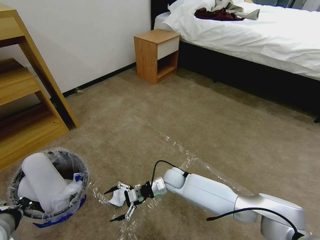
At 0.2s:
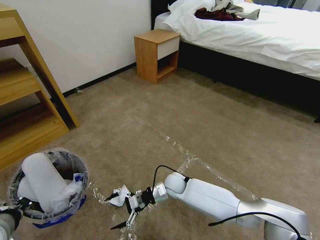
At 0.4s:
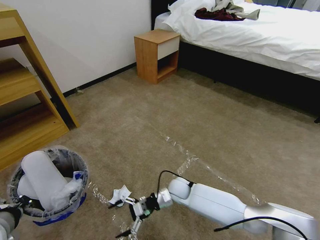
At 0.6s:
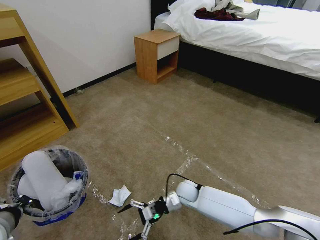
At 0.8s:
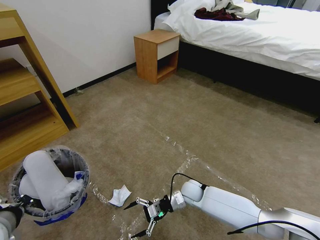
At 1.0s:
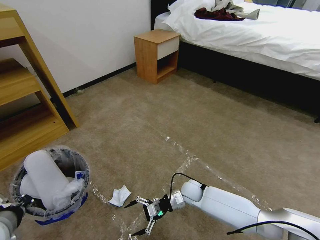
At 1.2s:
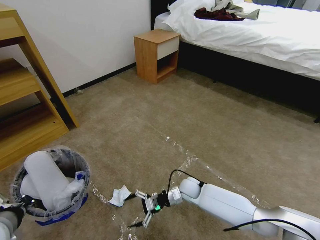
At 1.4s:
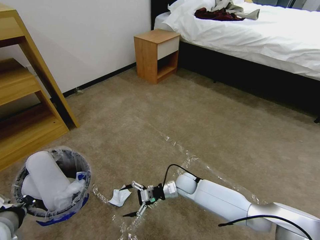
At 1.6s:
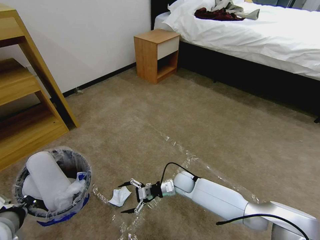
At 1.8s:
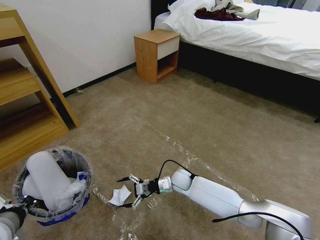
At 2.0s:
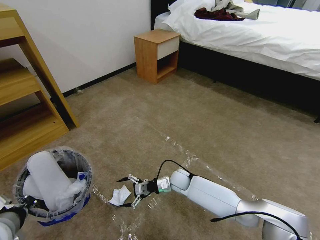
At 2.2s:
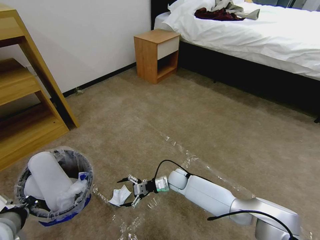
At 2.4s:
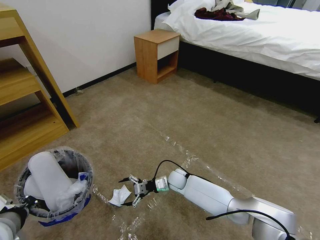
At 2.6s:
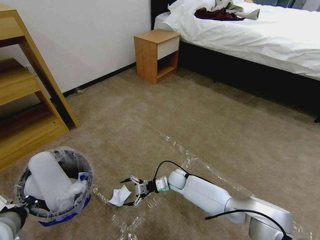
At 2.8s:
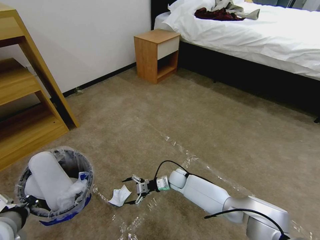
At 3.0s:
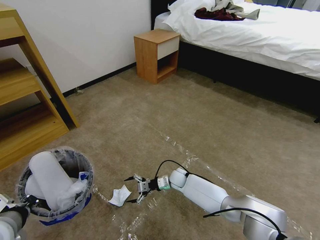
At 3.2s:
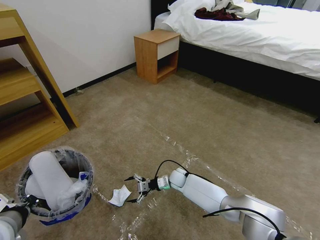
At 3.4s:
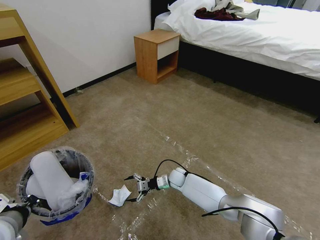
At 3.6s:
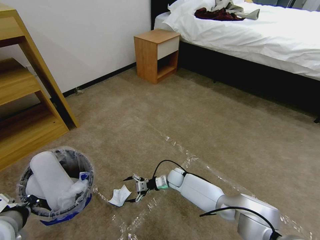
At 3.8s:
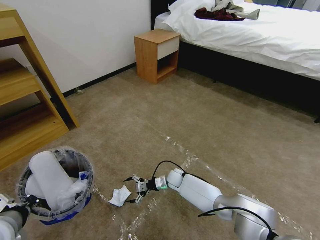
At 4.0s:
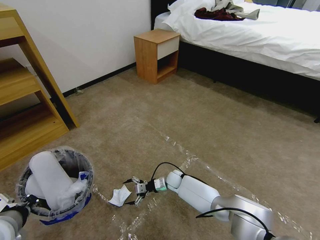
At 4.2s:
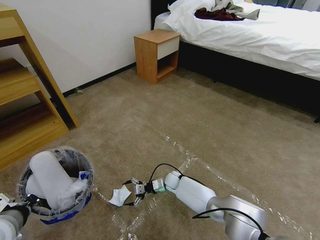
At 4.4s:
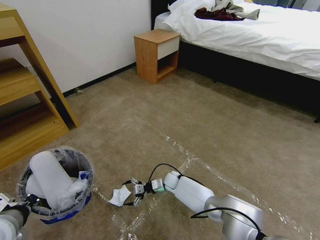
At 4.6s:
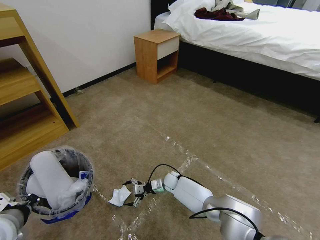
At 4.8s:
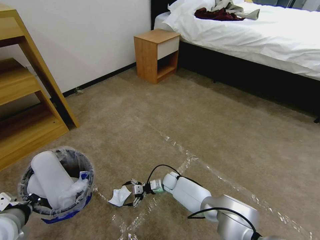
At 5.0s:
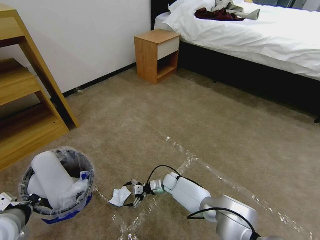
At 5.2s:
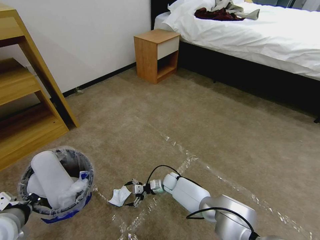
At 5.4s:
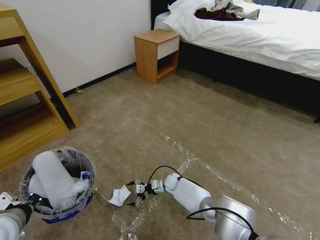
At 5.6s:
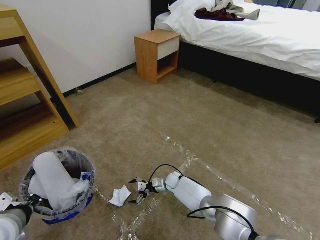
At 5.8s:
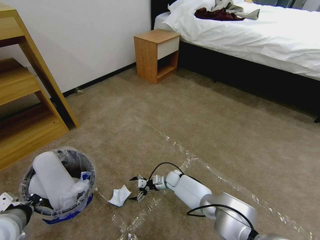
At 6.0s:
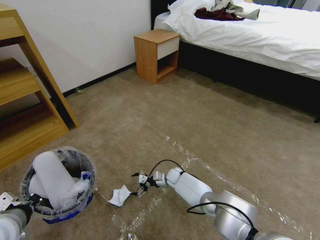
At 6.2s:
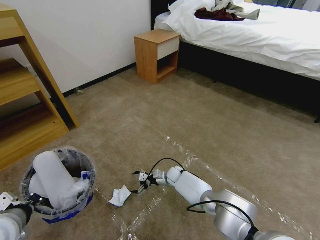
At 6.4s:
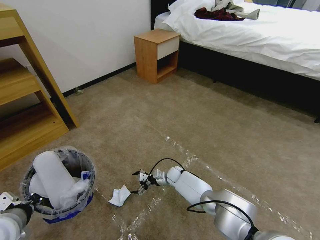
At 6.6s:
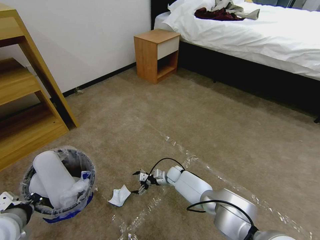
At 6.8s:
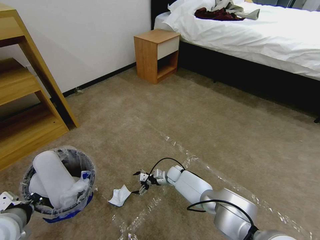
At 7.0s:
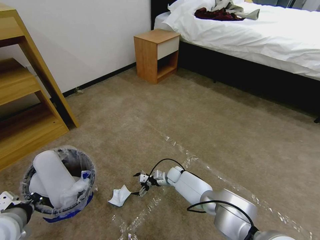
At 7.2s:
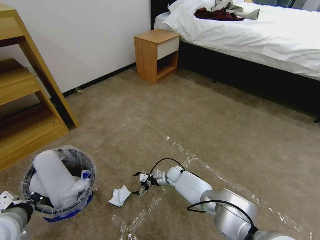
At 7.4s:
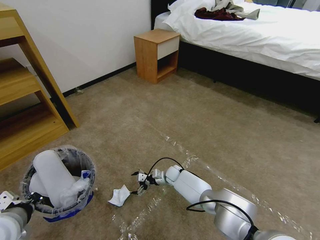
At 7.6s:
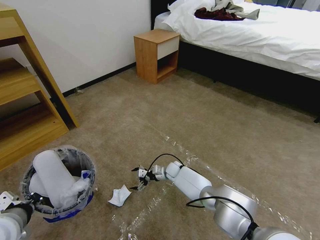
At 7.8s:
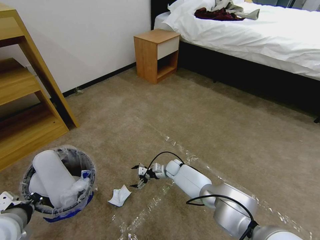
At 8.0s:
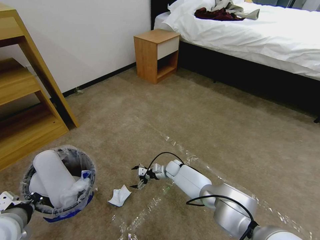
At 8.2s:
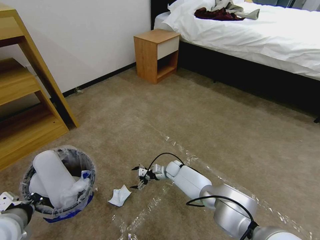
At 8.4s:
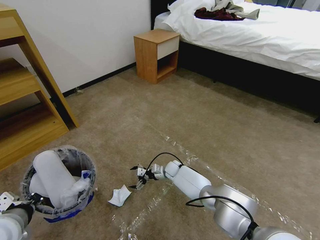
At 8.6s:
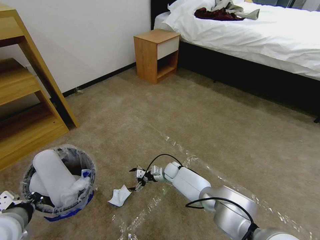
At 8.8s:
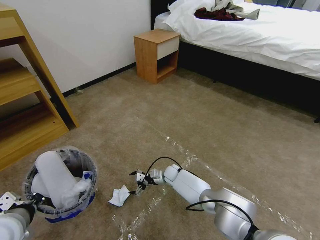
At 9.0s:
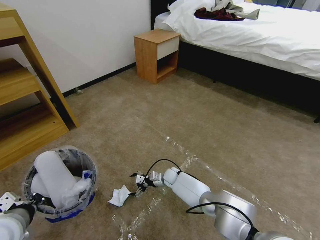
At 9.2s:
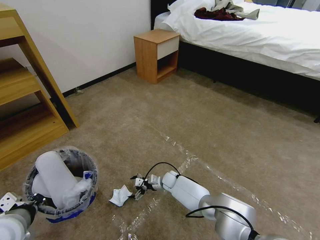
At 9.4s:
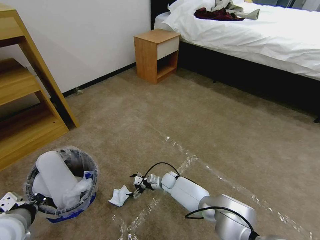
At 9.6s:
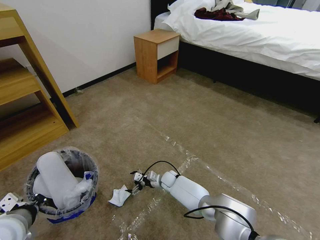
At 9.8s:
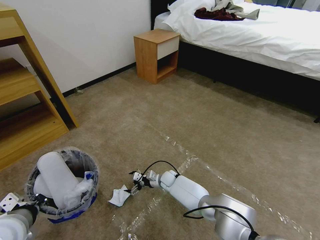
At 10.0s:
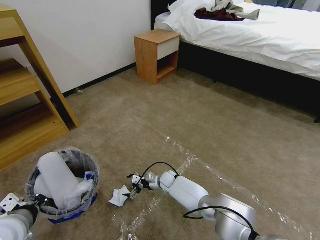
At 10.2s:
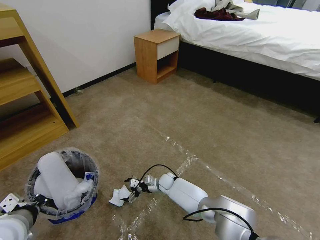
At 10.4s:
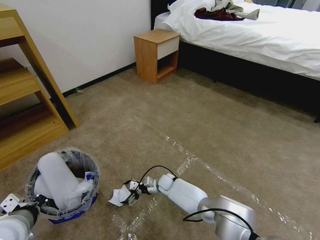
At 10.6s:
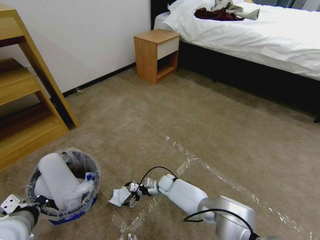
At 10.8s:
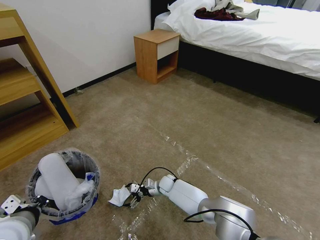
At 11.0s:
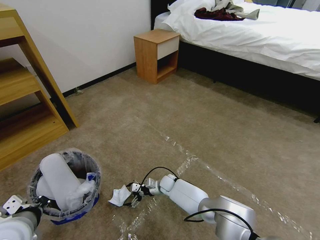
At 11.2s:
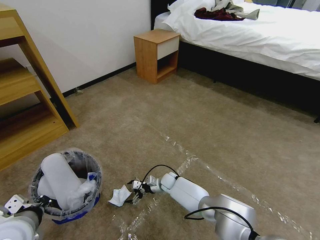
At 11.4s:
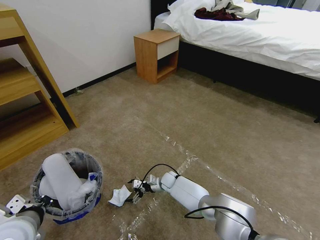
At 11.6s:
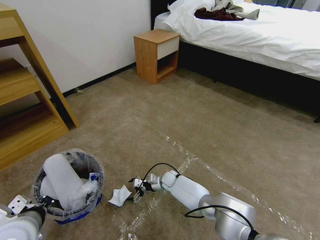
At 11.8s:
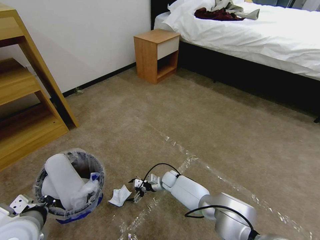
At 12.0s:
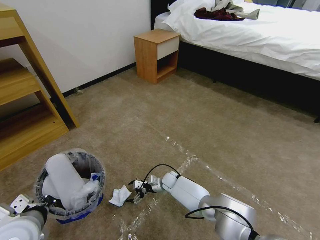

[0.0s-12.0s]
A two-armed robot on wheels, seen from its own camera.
Task of the whole recording: Pick up the trash bin and place the garbage on the floor into it.
1.6s to 3.0s: The right gripper shifts by about 5 cm.
3.0s to 4.4s: The grippers stay close to where they were, moving slightly.
4.4s to 9.0s: The grippers stay close to where they were, moving slightly.
9.0s to 12.0s: The grippers stay close to where they were, moving slightly.

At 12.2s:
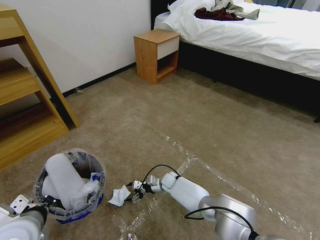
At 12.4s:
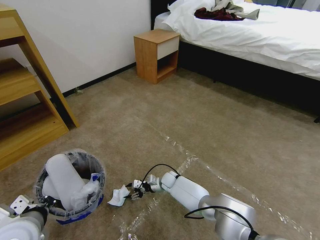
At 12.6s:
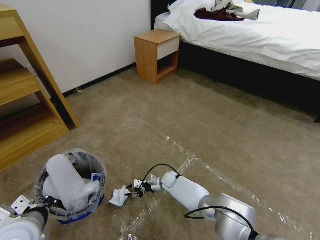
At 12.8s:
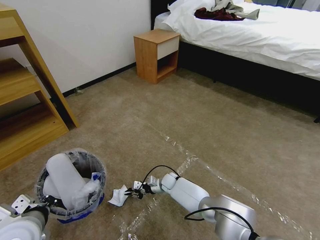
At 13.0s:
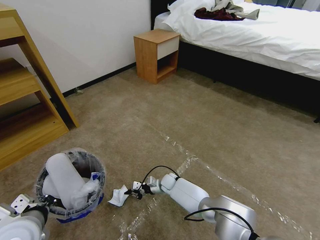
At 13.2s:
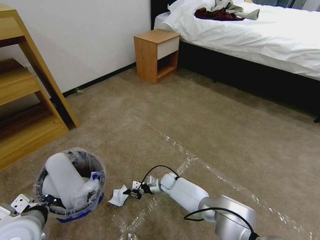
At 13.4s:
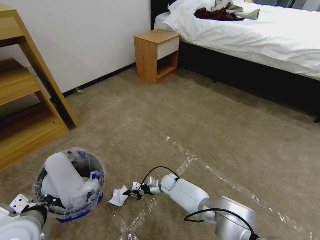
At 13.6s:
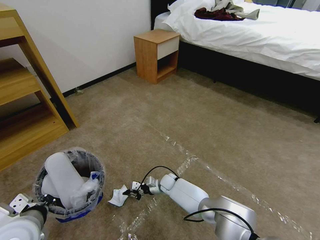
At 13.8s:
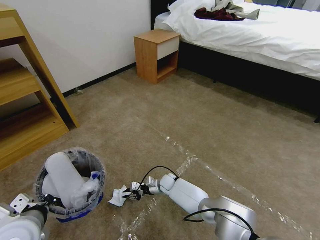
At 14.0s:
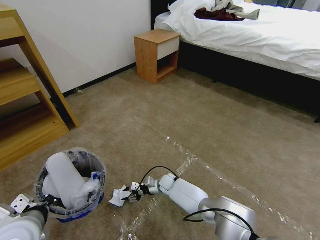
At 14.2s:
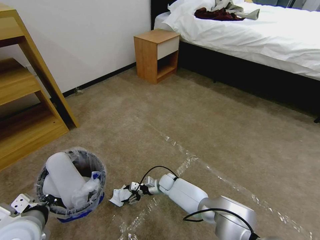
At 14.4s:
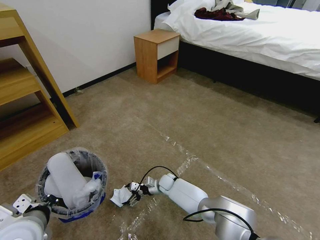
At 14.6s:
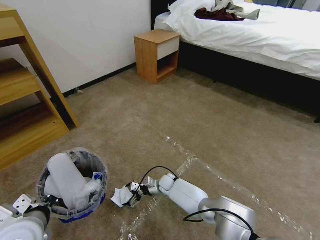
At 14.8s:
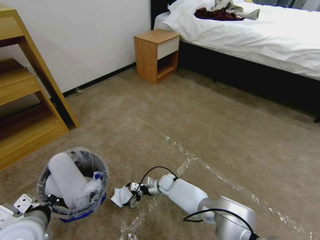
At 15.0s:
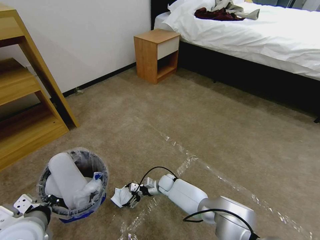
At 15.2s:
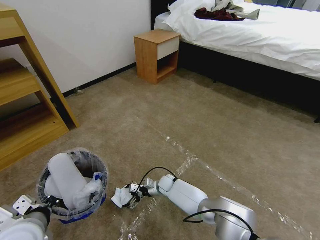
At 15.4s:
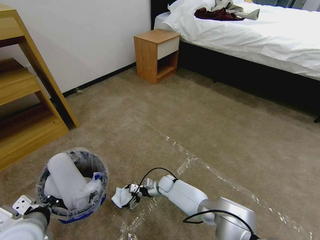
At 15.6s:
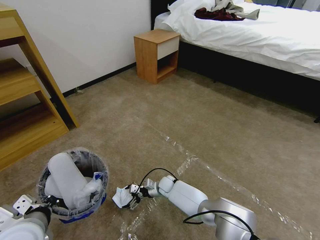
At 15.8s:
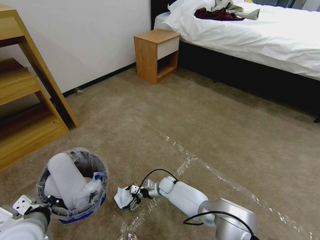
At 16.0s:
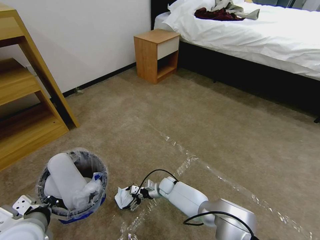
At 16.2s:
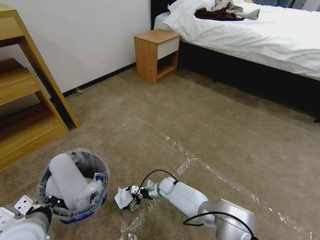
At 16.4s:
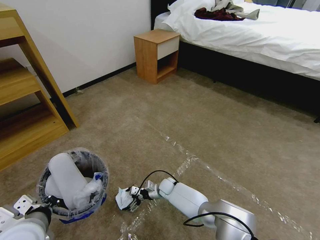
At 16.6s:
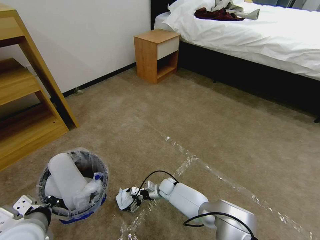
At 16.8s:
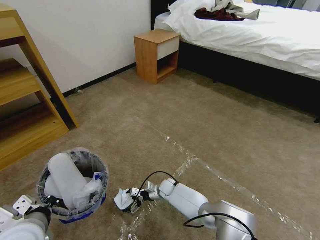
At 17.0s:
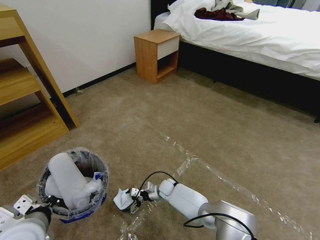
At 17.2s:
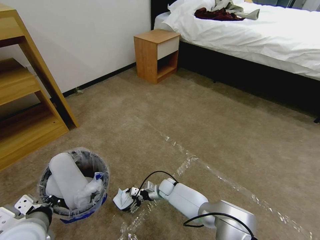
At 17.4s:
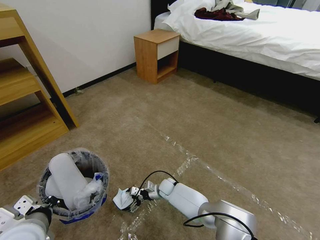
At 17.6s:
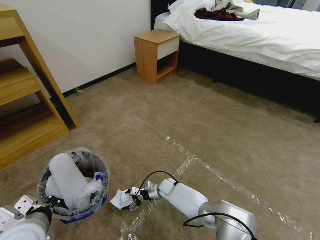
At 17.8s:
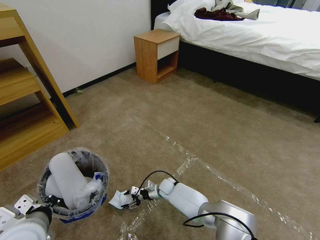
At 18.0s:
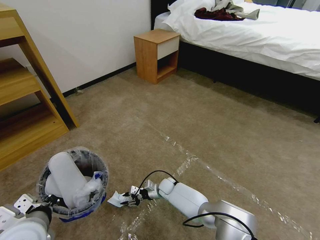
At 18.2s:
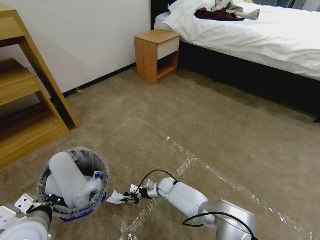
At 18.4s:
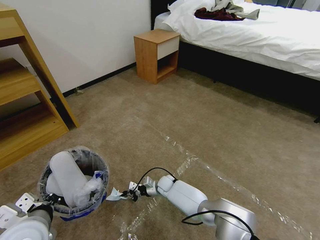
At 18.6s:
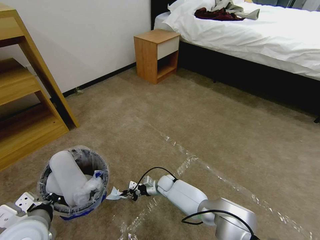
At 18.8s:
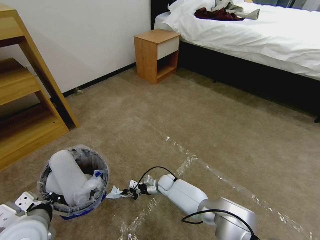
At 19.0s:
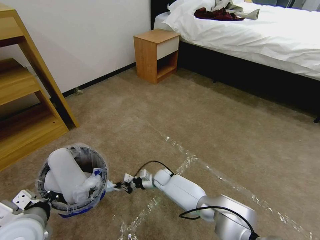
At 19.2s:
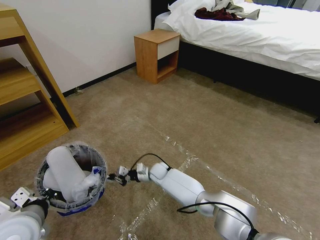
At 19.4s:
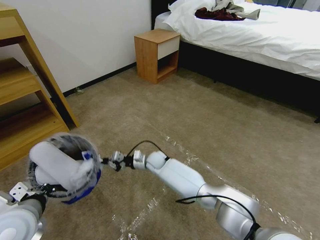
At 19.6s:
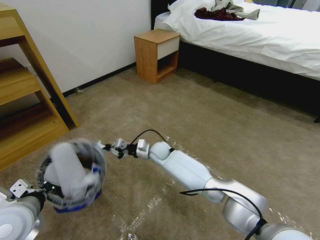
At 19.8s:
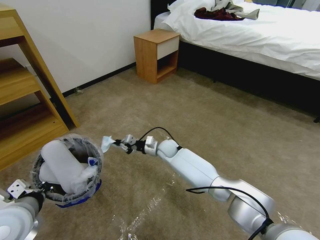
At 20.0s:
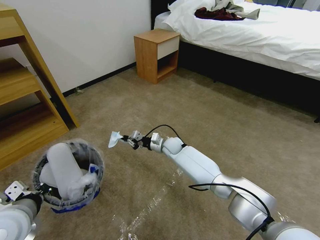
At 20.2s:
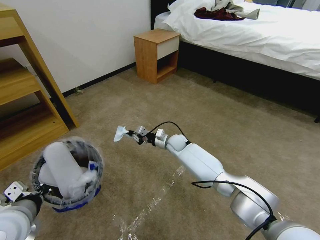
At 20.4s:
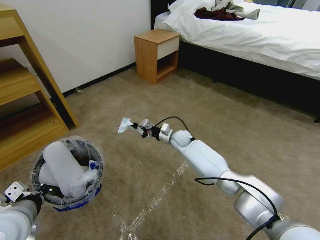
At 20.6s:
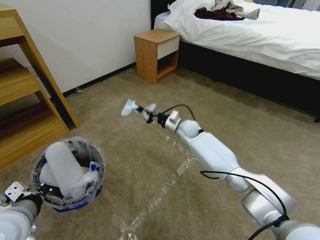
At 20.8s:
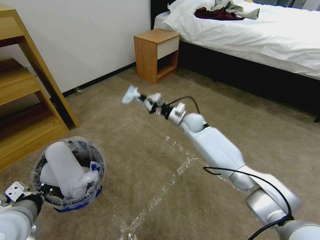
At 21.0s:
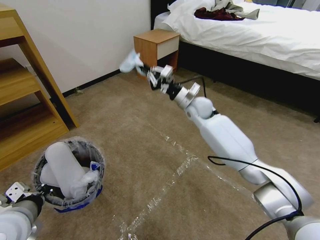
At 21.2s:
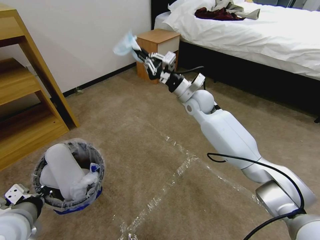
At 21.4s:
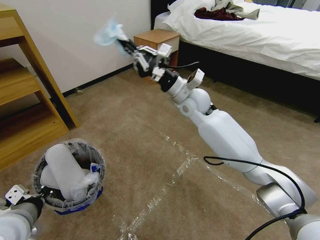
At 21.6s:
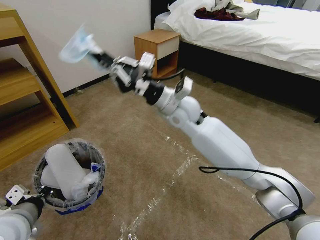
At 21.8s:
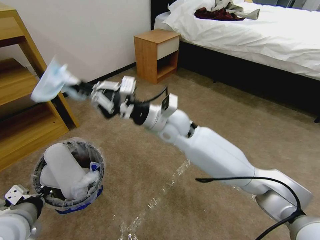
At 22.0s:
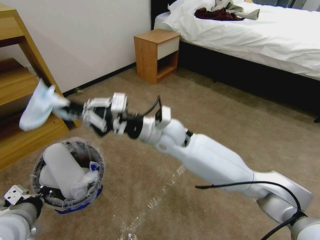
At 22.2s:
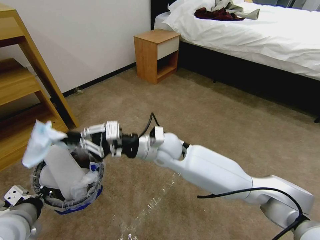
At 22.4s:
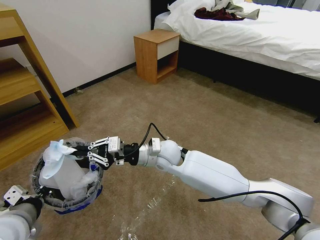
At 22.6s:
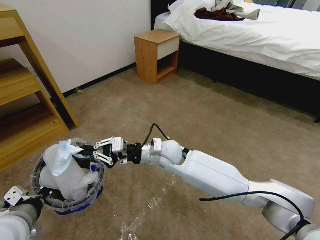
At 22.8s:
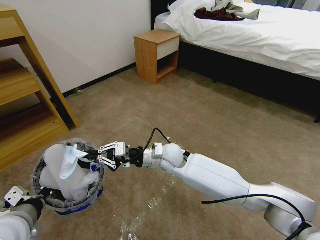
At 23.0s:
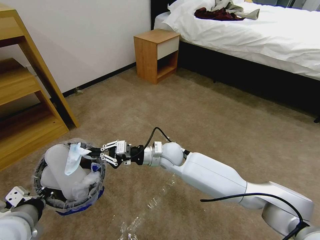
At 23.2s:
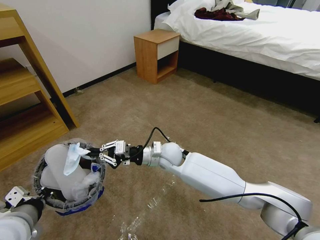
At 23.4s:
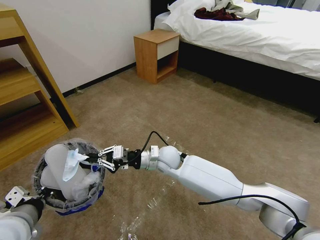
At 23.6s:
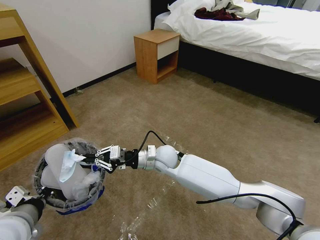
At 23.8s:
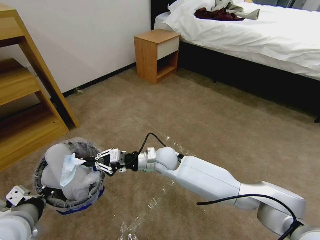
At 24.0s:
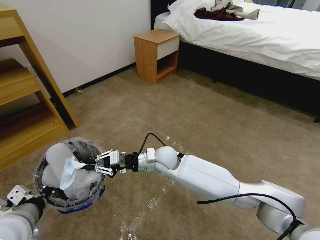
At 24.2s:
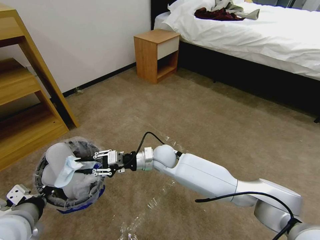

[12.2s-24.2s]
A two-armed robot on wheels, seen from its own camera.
Task of the whole recording: Pick up the trash bin and place the garbage on the floor into it.
12.2s to 13.8s: The right gripper closes.
13.8s to 15.2s: The right gripper opens up.
15.2s to 16.6s: The grippers make only small movements.
16.6s to 18.2s: The right gripper closes its fingers.
18.2s to 19.8s: The right gripper is displaced upward and forward by some 20 cm.
19.8s to 21.2s: The right gripper shifts approximately 25 cm upward and to the right.
21.2s to 22.6s: The right gripper goes about 20 cm backward, to the left and downward.
22.6s to 24.2s: The right gripper moves downward, about 5 cm.
